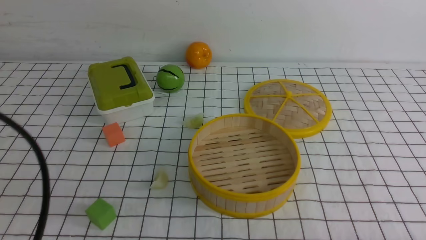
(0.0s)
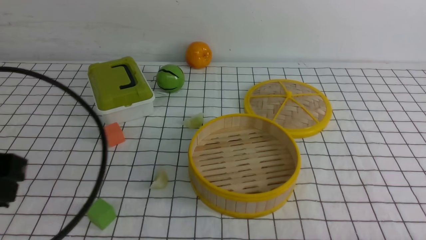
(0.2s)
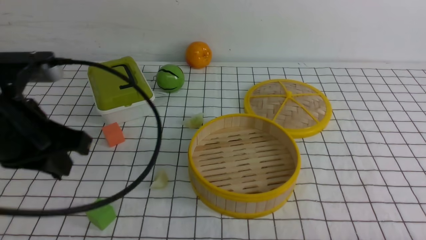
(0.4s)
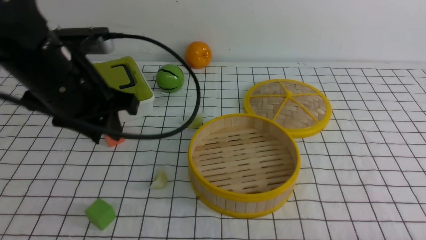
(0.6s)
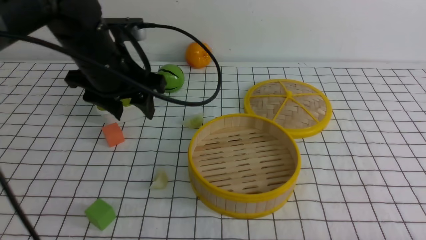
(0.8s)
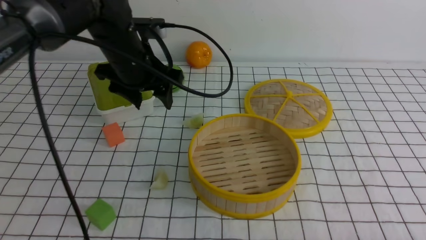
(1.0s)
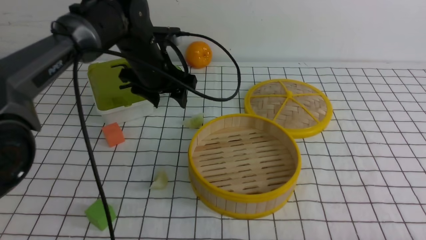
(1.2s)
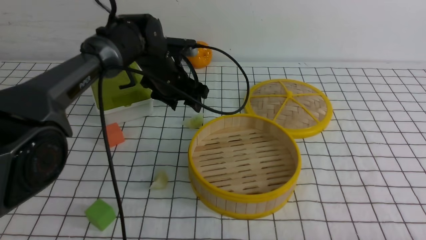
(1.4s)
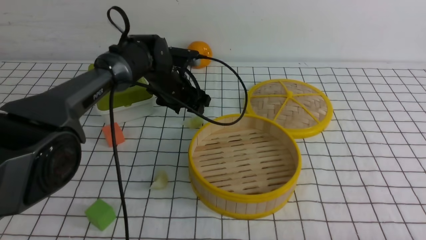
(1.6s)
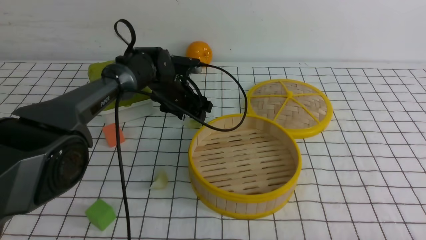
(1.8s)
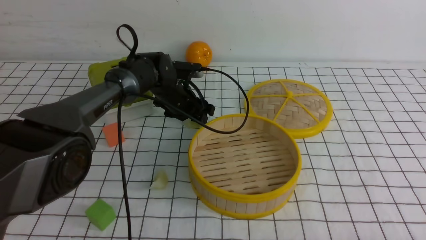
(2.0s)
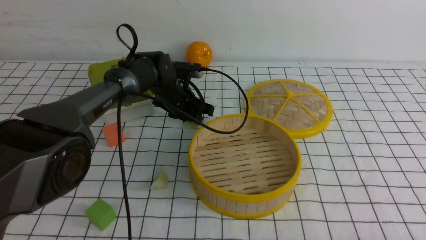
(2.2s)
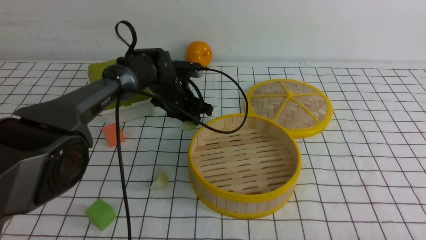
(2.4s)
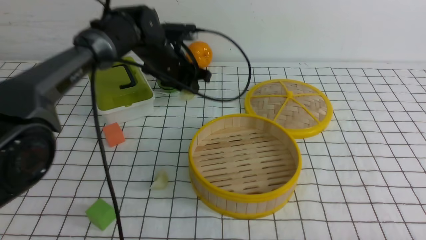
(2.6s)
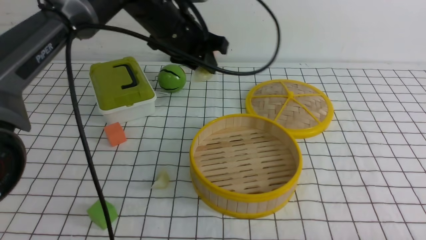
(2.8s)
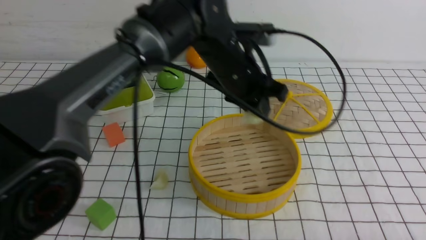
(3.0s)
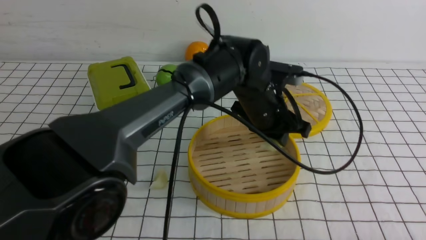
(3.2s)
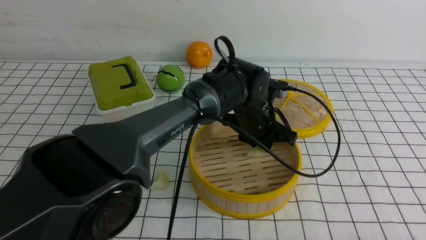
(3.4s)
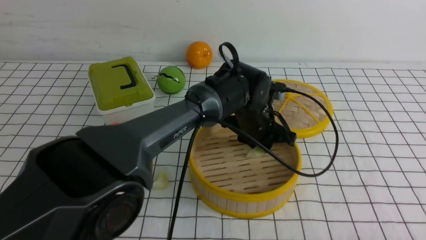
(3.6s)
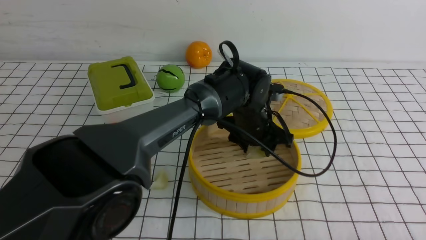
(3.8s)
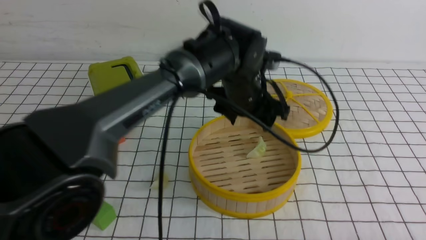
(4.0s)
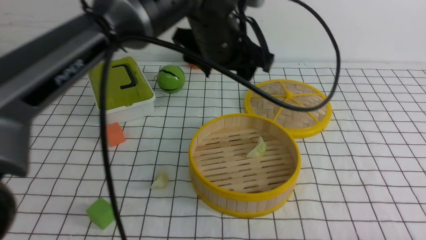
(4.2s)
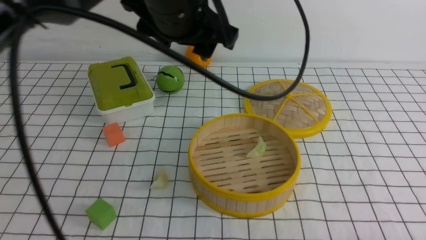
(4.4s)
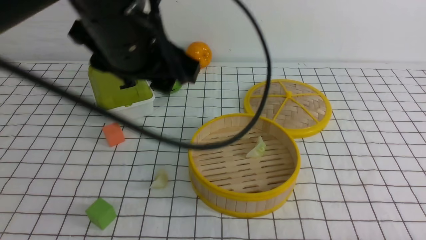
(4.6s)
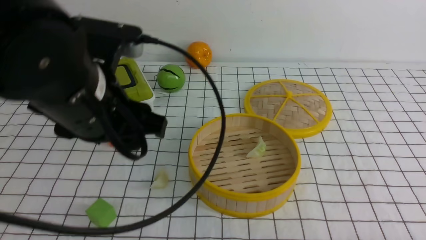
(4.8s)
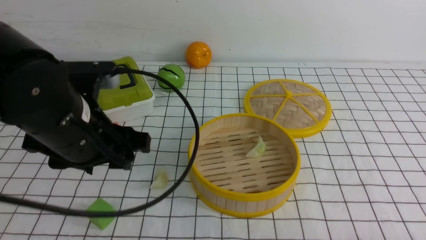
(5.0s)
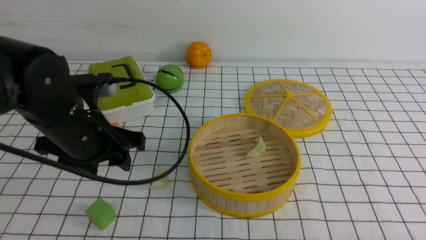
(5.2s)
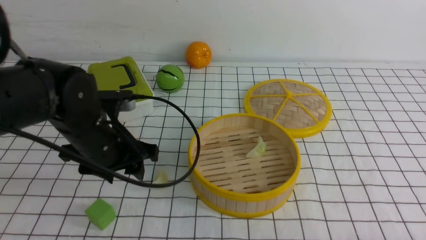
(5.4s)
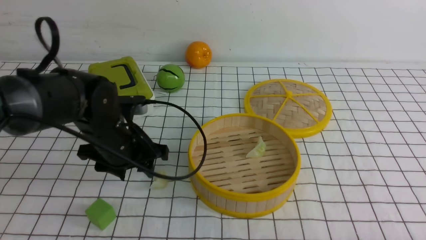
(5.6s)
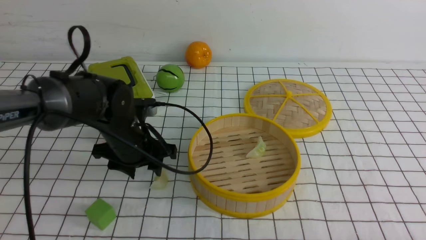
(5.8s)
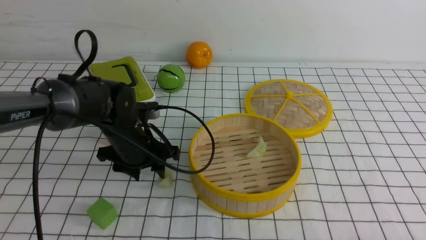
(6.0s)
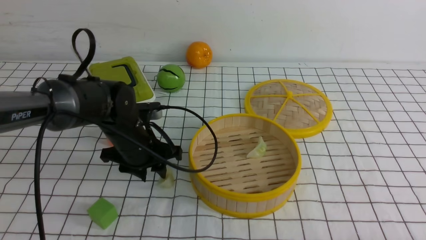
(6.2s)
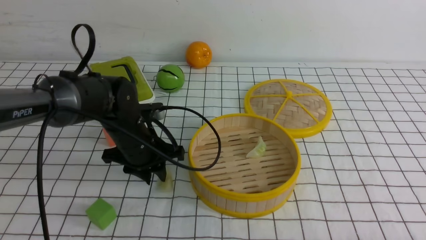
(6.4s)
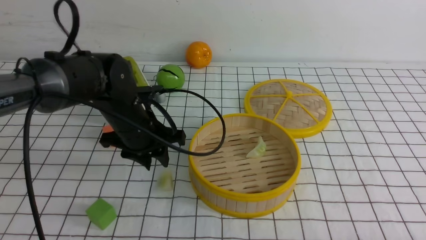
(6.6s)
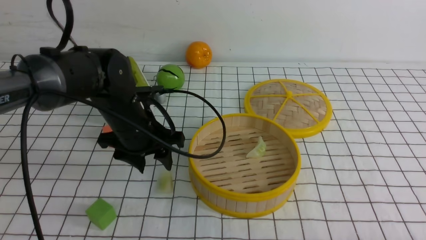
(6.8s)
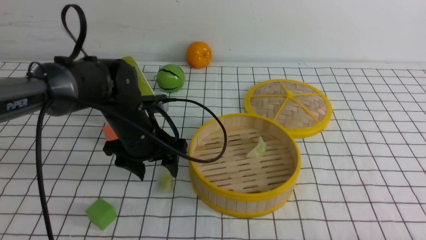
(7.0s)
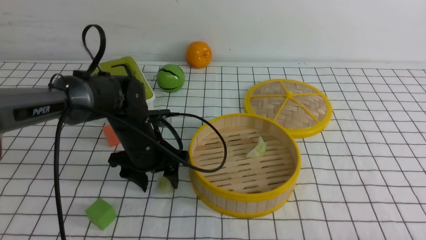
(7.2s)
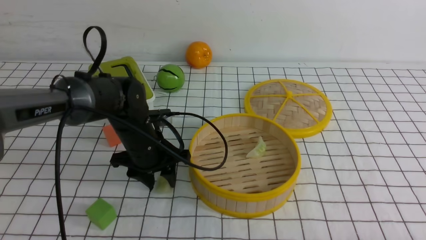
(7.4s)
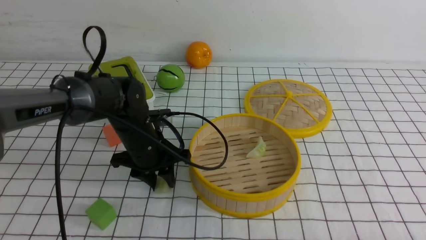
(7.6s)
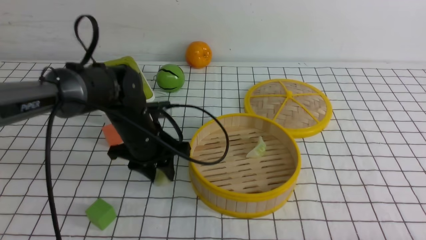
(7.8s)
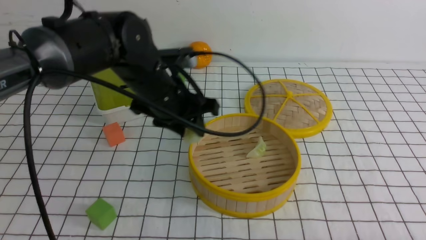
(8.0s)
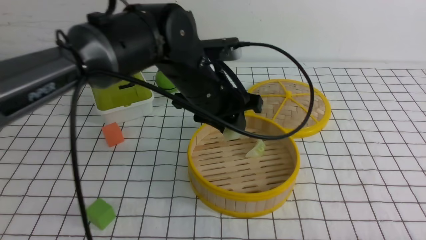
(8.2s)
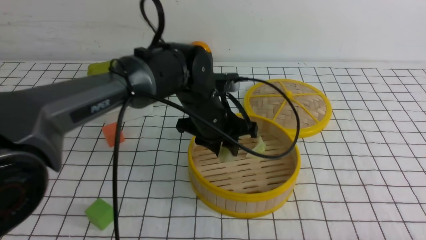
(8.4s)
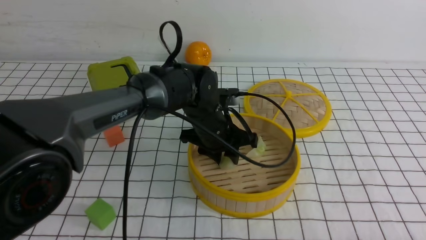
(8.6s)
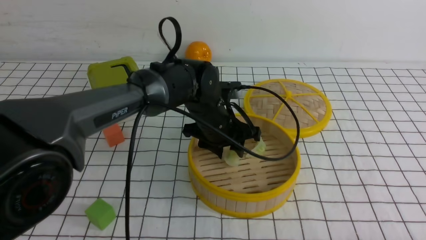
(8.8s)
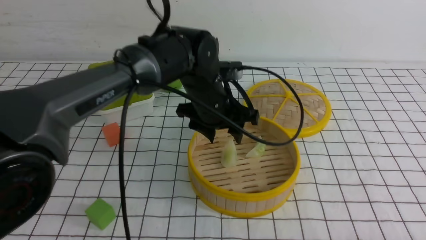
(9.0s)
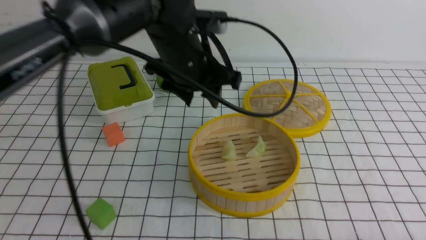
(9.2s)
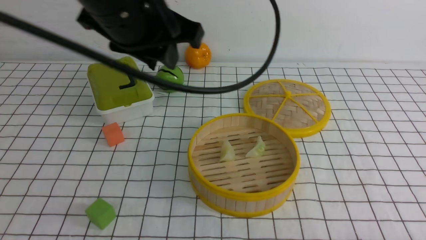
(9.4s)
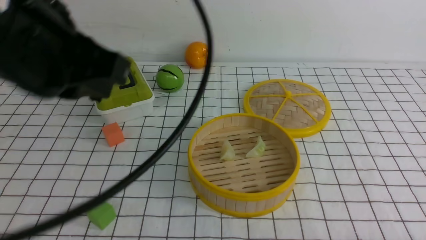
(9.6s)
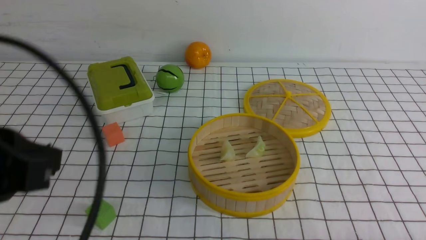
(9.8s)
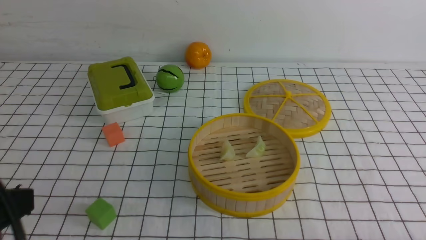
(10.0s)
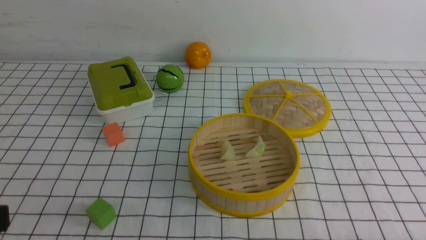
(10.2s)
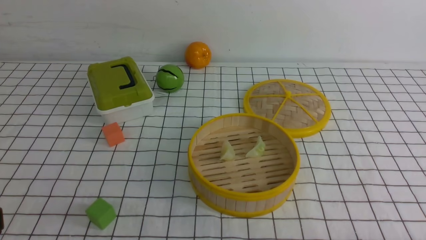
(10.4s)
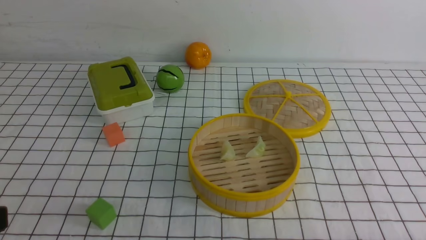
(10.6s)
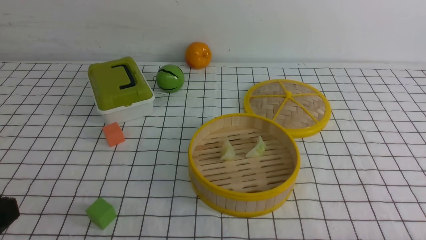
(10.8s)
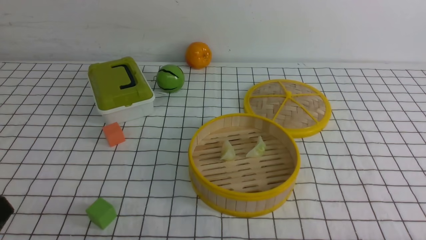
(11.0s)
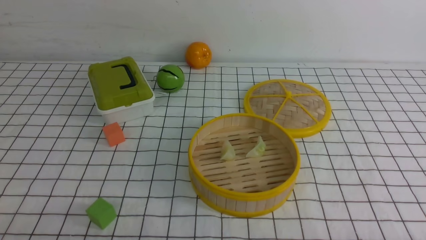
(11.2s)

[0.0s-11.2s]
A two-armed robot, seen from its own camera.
Task of the whole recording: put the dumplings into the steamer on the table with the white tablecloth.
Step, 0.0s to 2.2s: use the left arm to grab a dumpling.
Step, 2.4s to 4.0s: use the left arm to put the dumpling into the steamer.
Step, 4.2s to 7.4s: use the left arm to grab a dumpling.
Step, 7.6s to 9.0s: use the left arm to put the dumpling into the steamer.
0.0s to 1.6s: The left gripper goes approximately 40 cm forward and to the right, and opens.
1.6s to 3.2s: The left gripper moves to the right and backward, approximately 20 cm, and closes.
3.2s to 4.8s: The left gripper goes up and down, about 20 cm each way, reversing 2 times, and opens.
4.8s to 6.4s: The left gripper is displaced downward and forward by about 20 cm.
6.4s to 8.0s: The left gripper moves upward and to the right, some 10 cm, and opens, then closes once more.
8.0s to 9.6s: The left gripper is displaced backward, upward and to the left by roughly 25 cm, and closes.
9.6s to 11.2s: The left gripper travels downward, backward and to the left by some 25 cm.

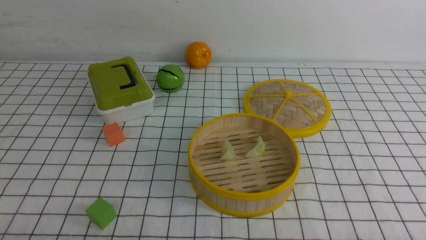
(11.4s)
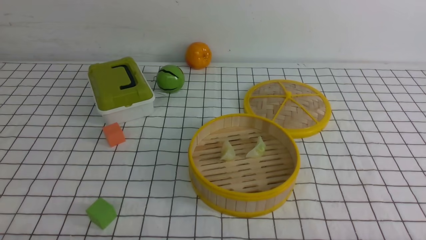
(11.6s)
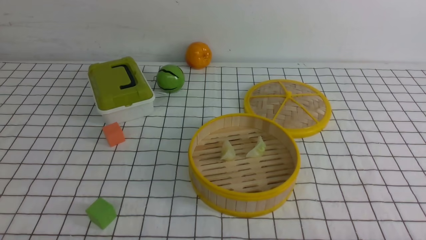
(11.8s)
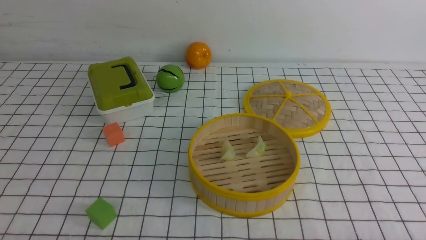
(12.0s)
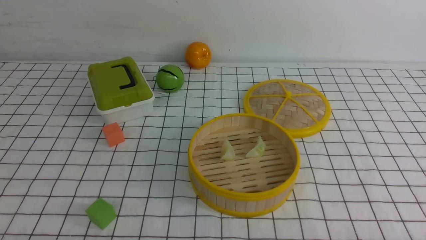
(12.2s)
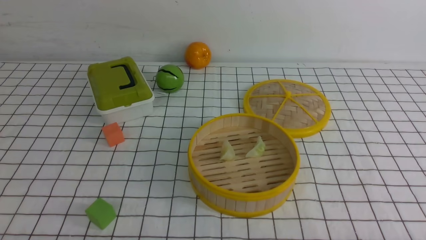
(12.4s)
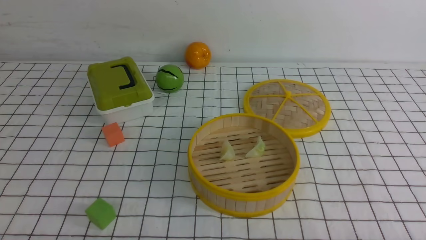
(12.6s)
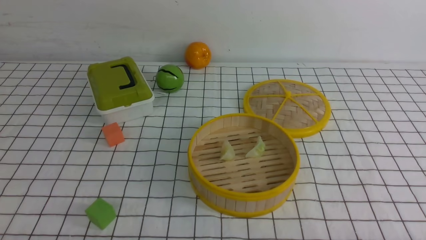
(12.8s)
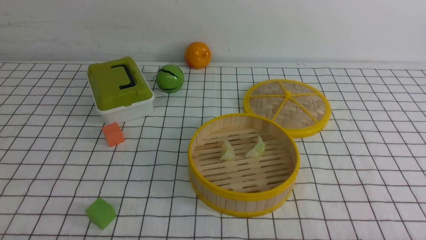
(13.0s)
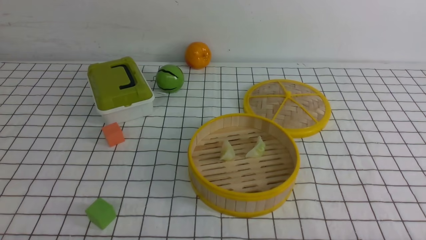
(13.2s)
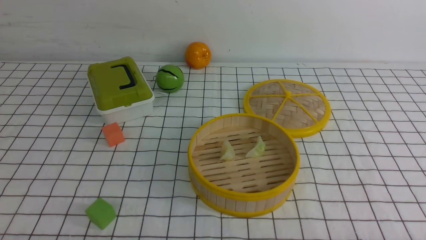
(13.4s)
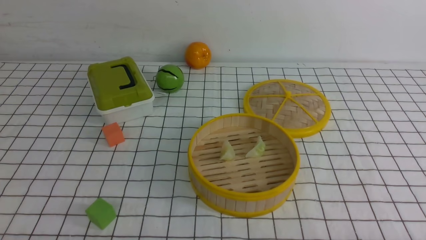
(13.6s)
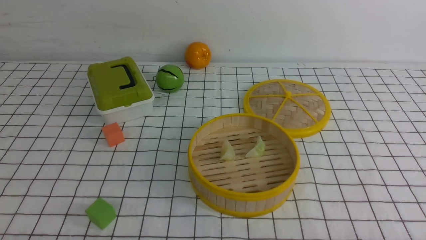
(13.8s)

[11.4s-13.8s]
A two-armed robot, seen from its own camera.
Task of the whole recording: put the dumplings into the steamer on the table with the white tablecloth.
12.6s to 13.8s: Both grippers stay put.

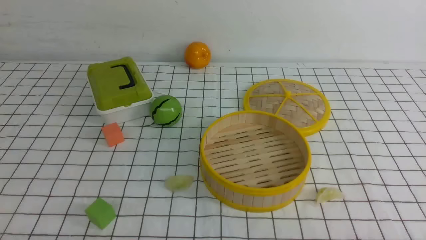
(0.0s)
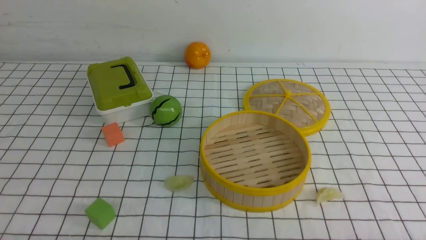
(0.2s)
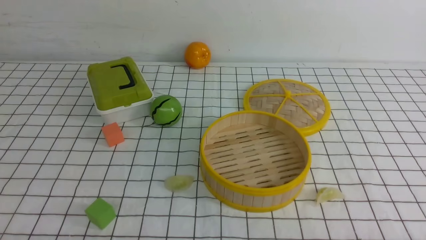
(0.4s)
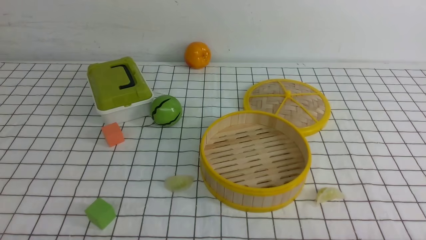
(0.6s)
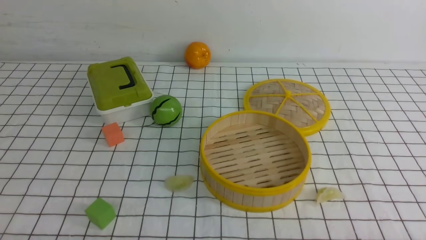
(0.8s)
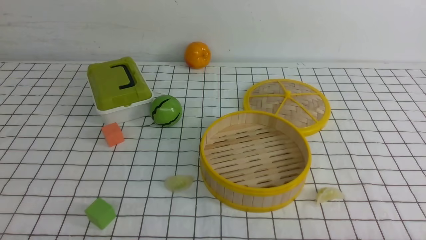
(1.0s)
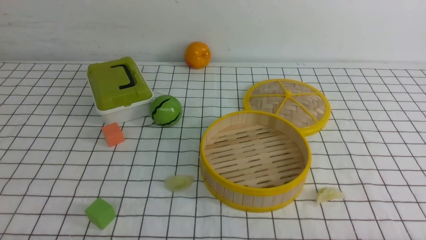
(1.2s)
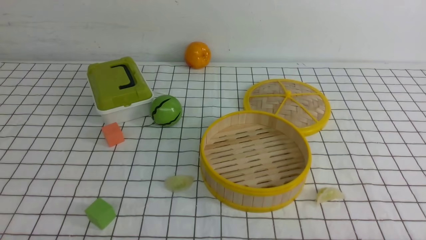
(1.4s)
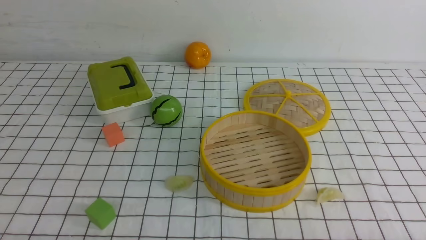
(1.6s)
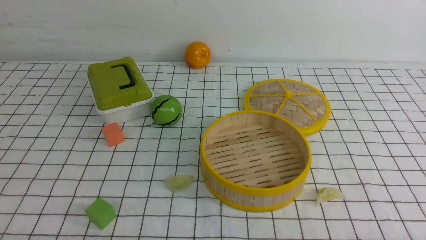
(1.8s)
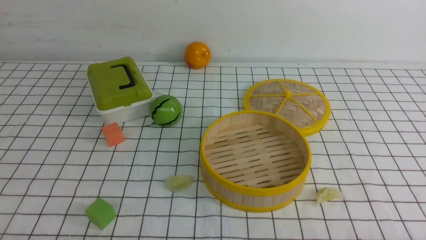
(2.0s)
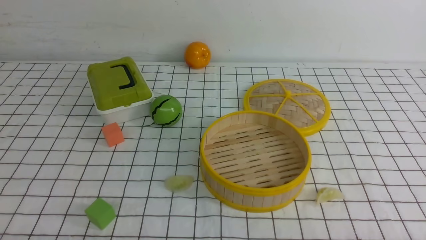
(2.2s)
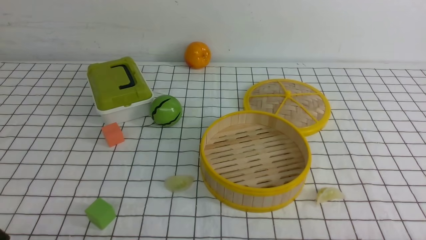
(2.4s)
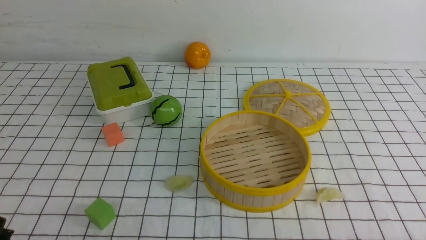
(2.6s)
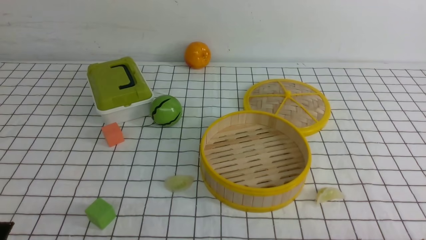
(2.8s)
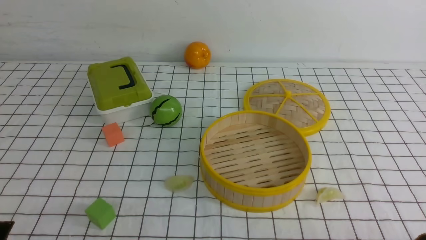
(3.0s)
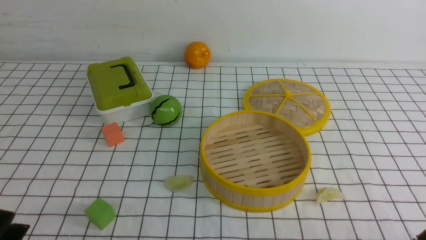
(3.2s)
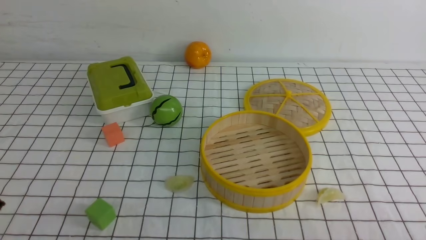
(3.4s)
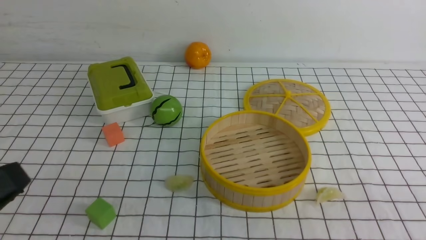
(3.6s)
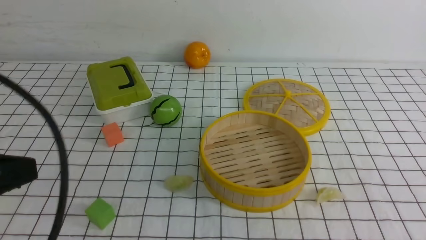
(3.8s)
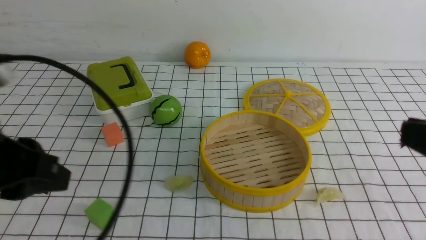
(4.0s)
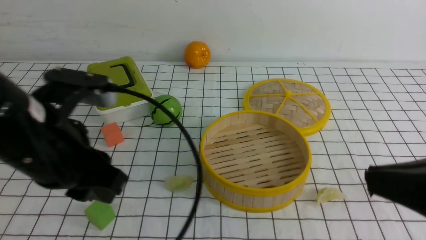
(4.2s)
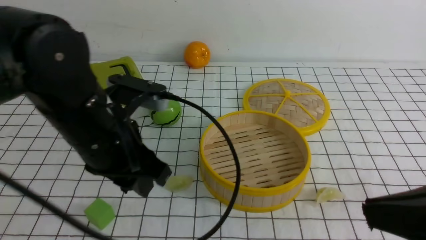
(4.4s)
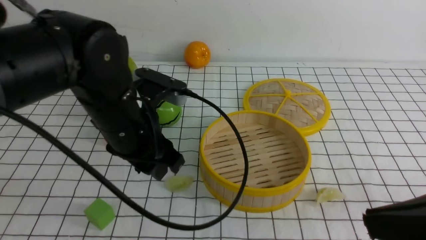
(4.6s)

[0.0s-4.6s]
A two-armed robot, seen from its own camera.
Task of the whole recording: put the dumplings into the steamer on the table with the white tablecloth.
0.0s to 1.6s: Both grippers stay about where they are.
3.0s to 4.6s: The left gripper moves forward, to the right and upward, some 30 cm, while the right gripper shifts about 15 cm upward, and closes its fingers.
